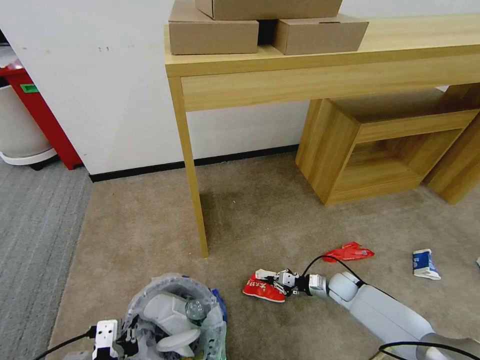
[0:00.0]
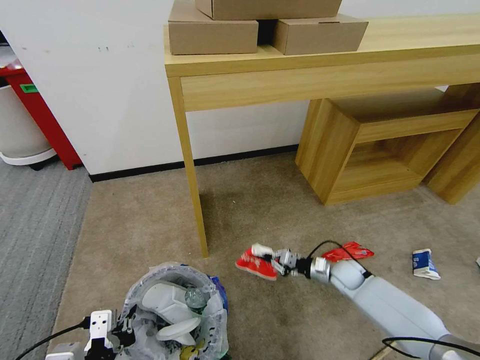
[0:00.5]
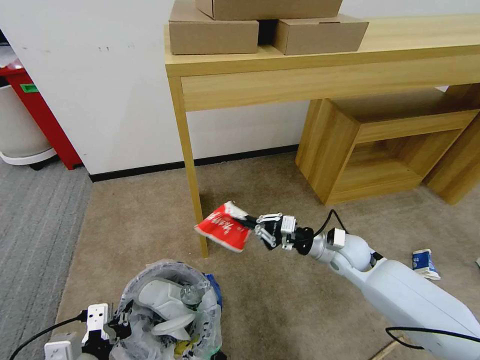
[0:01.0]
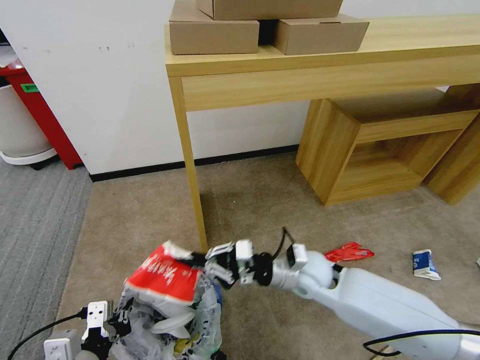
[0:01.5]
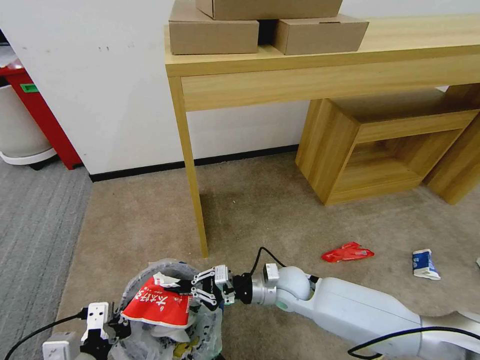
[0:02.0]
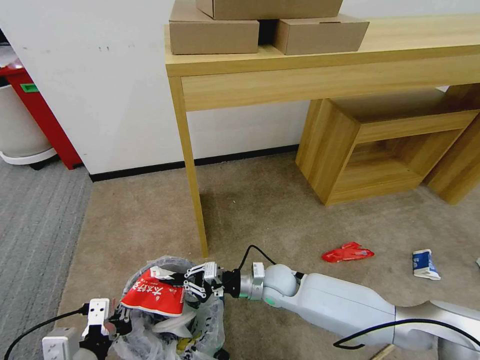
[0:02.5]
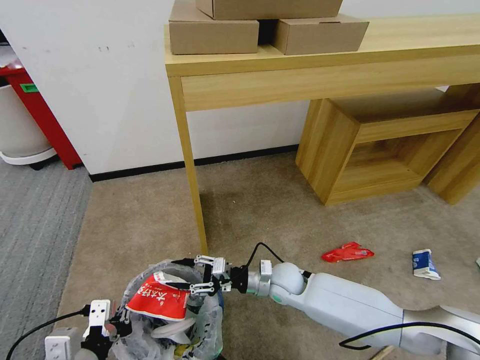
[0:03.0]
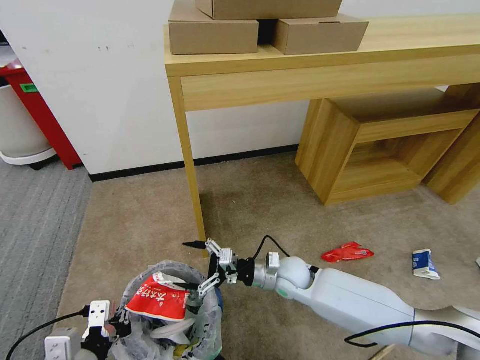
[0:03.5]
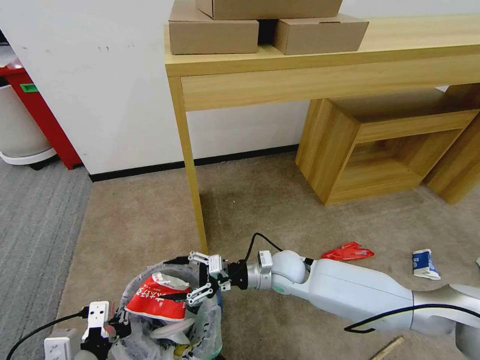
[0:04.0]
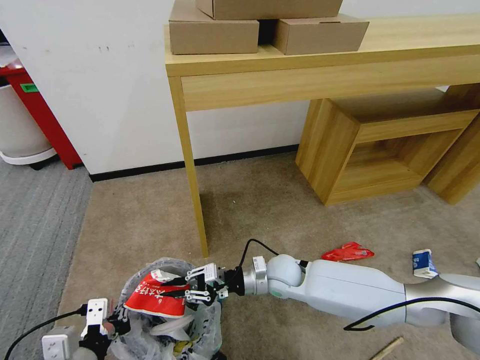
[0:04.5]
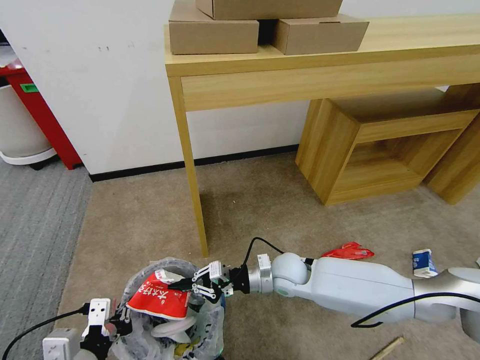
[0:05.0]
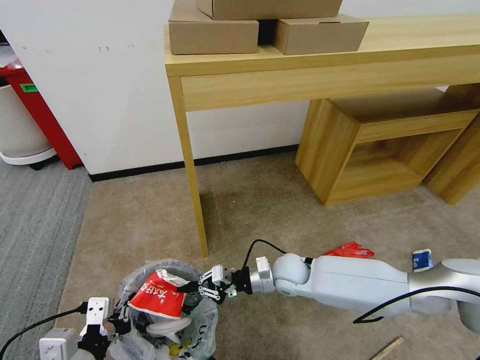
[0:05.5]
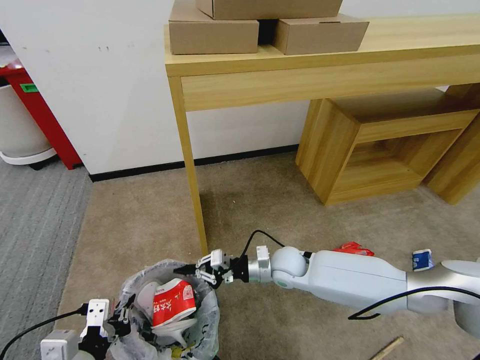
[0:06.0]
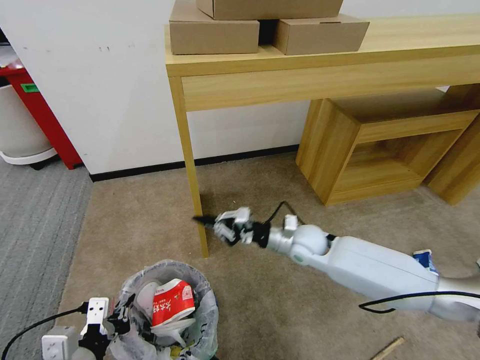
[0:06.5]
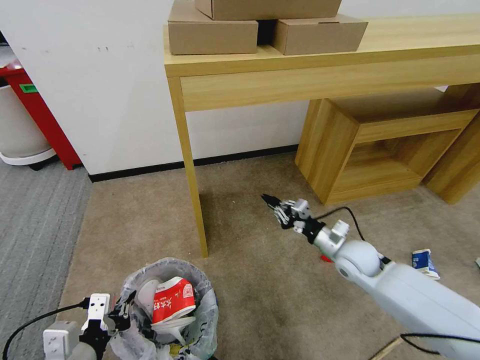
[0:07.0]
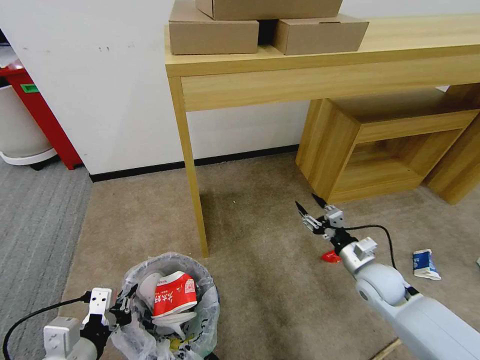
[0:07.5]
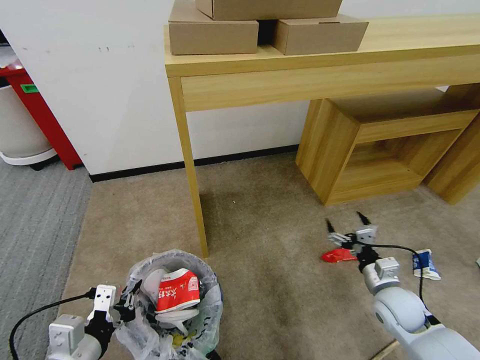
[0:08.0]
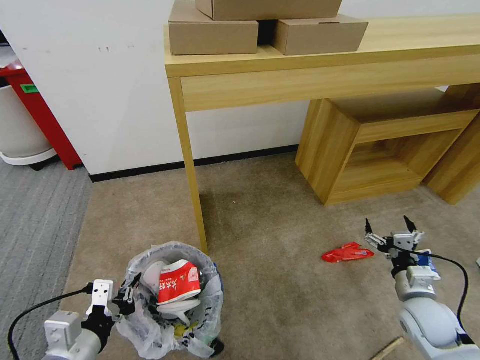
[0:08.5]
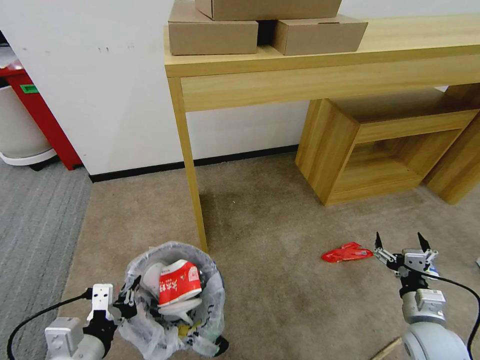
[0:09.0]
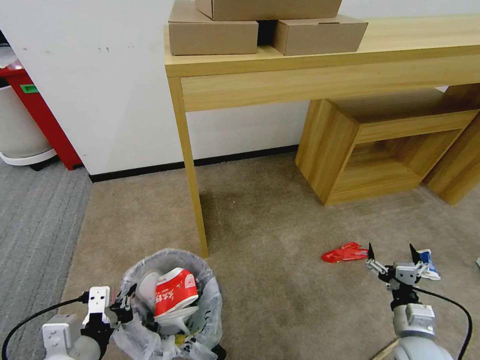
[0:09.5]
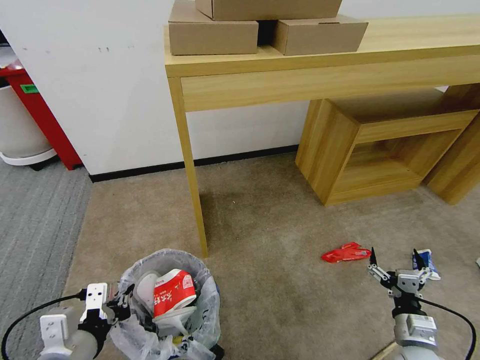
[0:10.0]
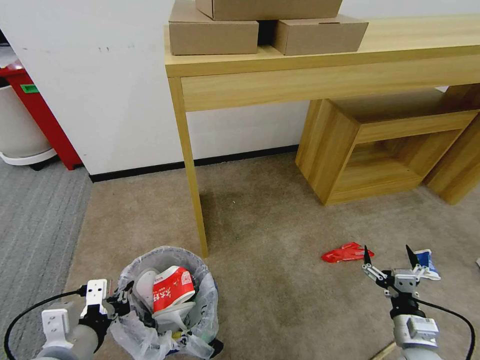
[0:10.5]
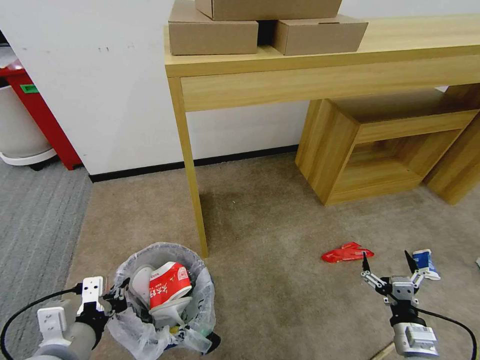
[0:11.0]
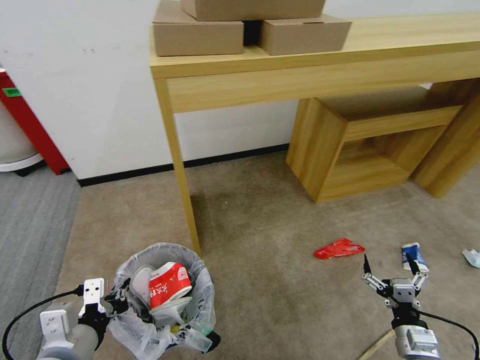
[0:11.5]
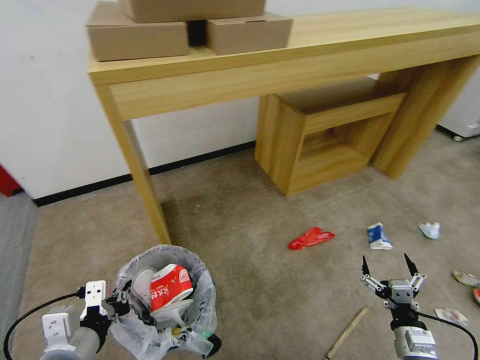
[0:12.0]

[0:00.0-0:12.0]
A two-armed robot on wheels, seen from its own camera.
Task of the whole recording: Pick up the trash bin and place the garbage on the floor into it.
0:00.0 to 0:02.0: The right gripper travels to the left and upward by roughly 25 cm.
0:02.0 to 0:04.0: The right gripper opens its fingers.
0:04.0 to 0:06.0: The right gripper closes.
0:06.0 to 0:08.0: The right gripper is displaced to the right and backward by some 25 cm, and opens its fingers.
0:08.0 to 0:10.0: The right gripper shifts roughly 10 cm backward.

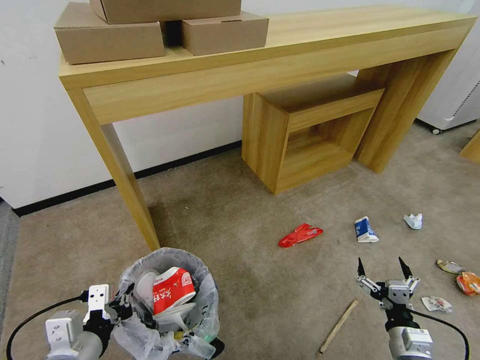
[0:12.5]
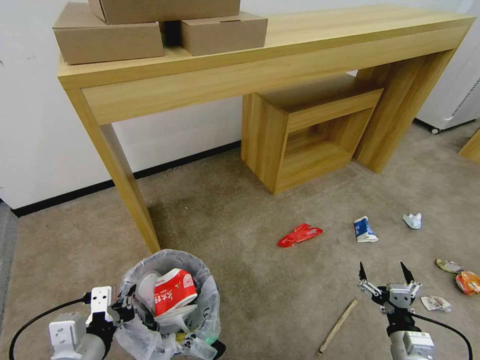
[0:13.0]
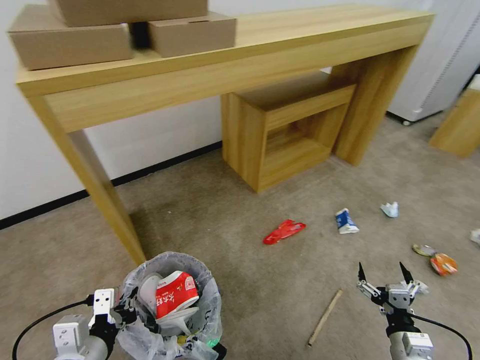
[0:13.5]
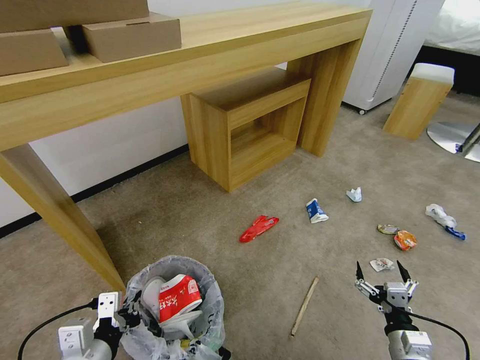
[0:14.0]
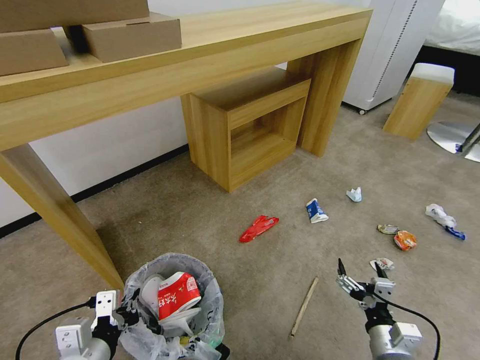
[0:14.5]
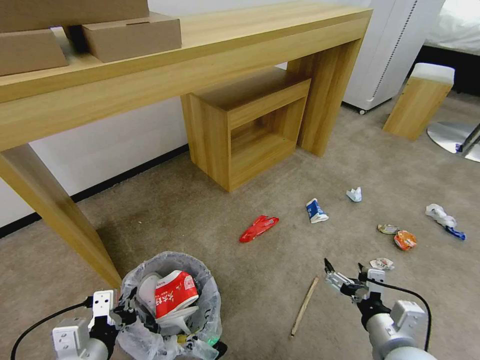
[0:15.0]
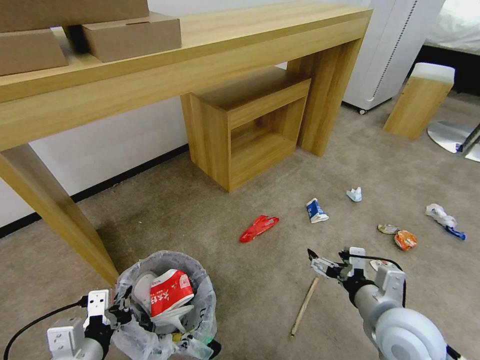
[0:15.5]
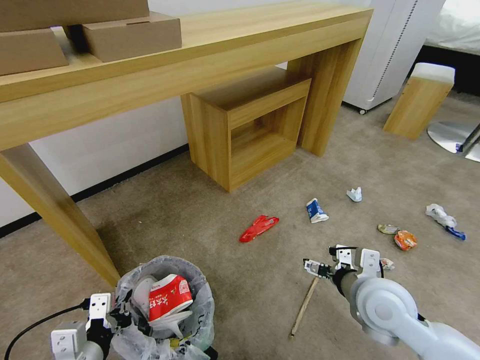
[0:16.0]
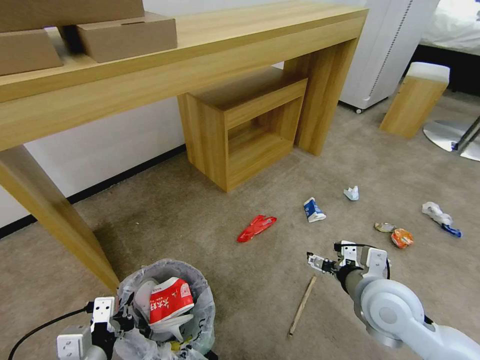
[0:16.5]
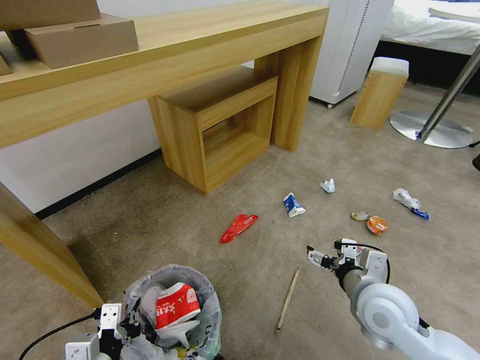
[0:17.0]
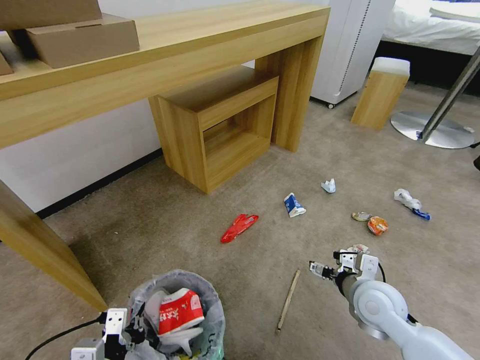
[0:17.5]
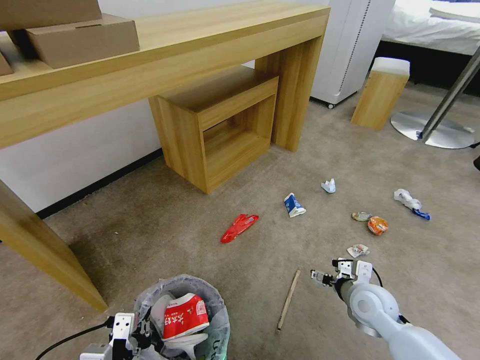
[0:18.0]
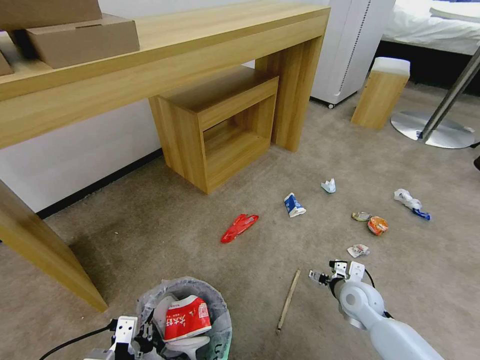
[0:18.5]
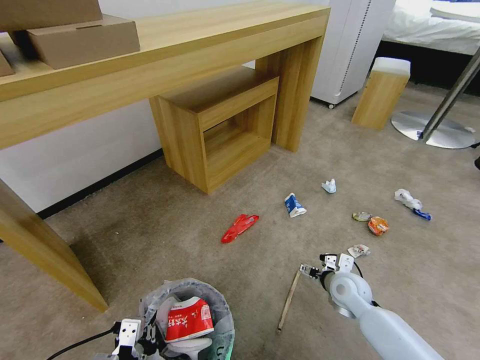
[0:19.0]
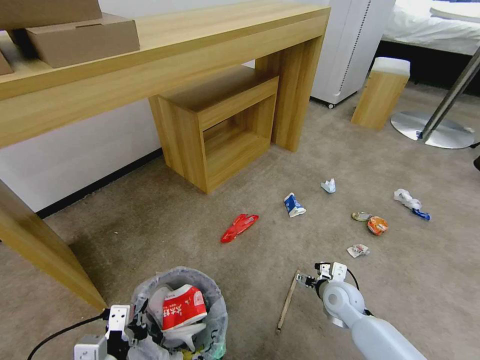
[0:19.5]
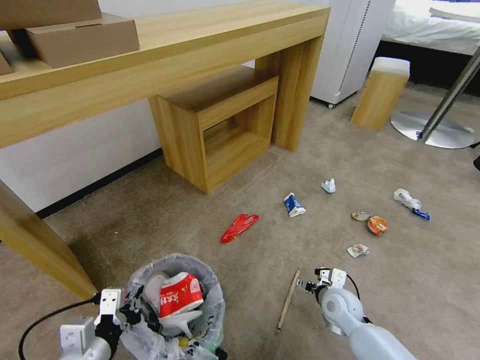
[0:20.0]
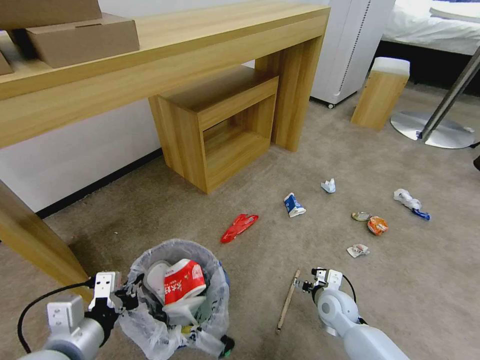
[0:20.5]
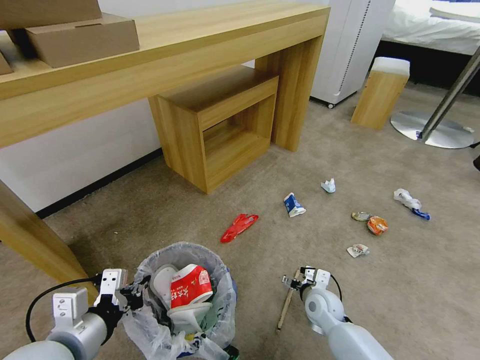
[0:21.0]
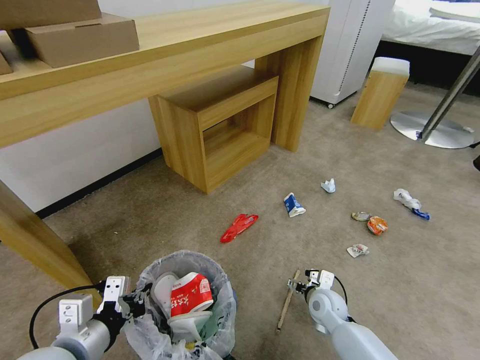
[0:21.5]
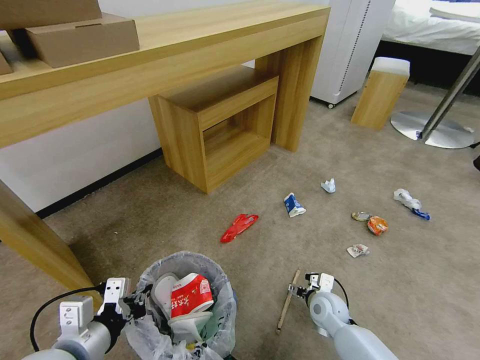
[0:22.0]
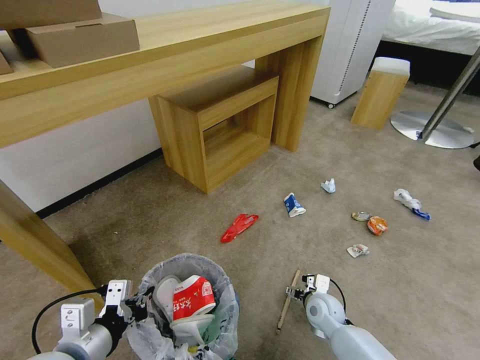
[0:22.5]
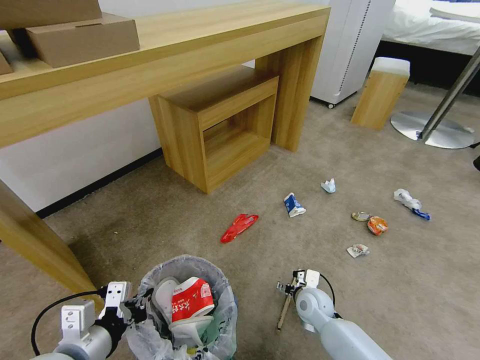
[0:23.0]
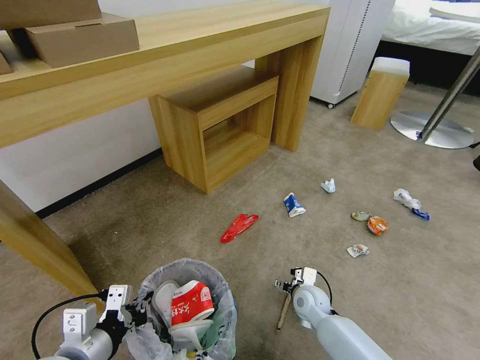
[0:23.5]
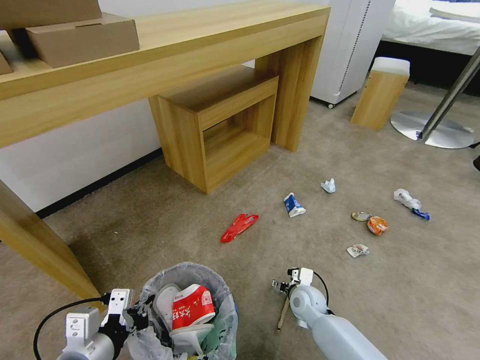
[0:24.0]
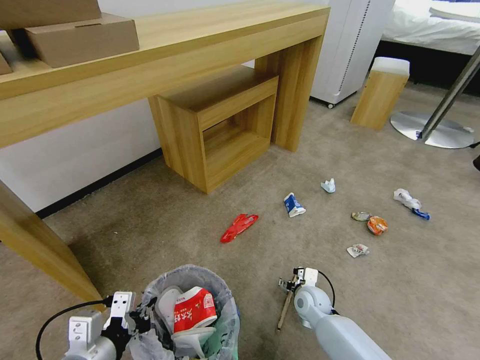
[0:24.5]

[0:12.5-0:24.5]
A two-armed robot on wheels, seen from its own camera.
Task of the whole recording: Pick up the trash bin and place the garbage on the floor into it.
0:12.5 to 0:14.5: The right gripper shifts by about 5 cm.
0:14.5 to 0:16.5: The right gripper heads upward and forward, covering approximately 15 cm.
0:16.5 to 0:18.5: The right gripper goes approximately 20 cm downward and forward.
0:18.5 to 0:20.5: The left gripper moves upward and forward, approximately 10 cm; the right gripper ends up roughly 5 cm from where it was.
0:20.5 to 0:22.5: The grippers move only a little.
0:22.5 to 0:24.5: The grippers move only a little.

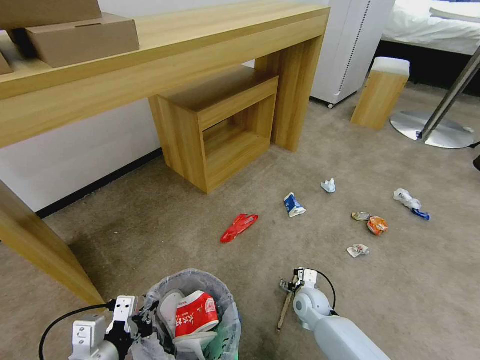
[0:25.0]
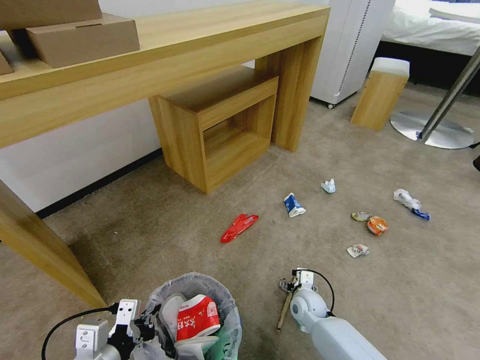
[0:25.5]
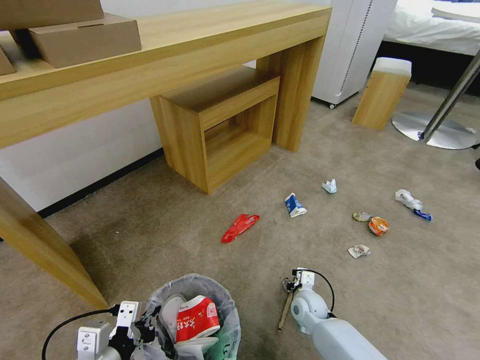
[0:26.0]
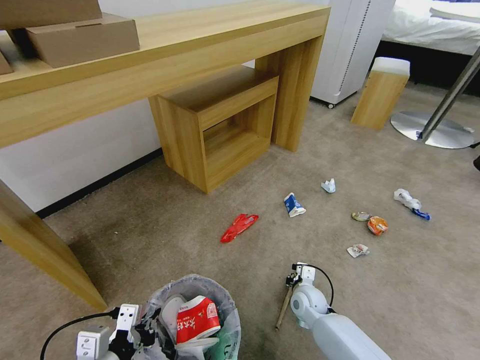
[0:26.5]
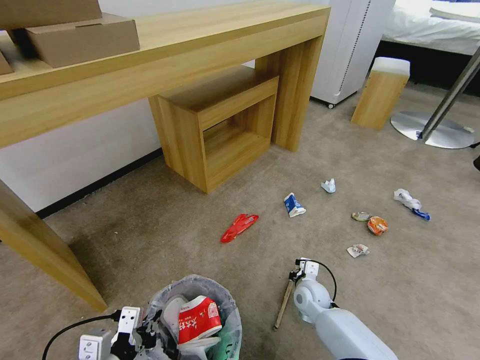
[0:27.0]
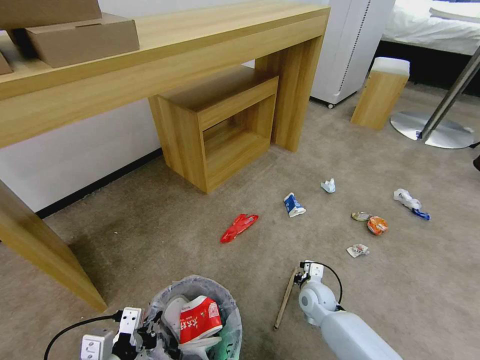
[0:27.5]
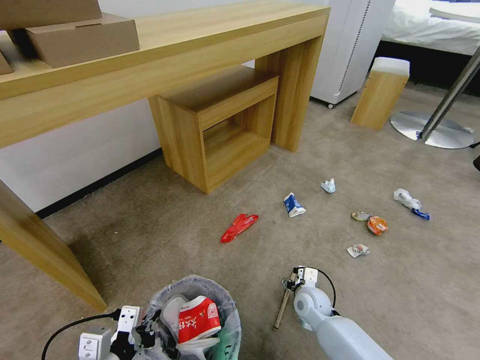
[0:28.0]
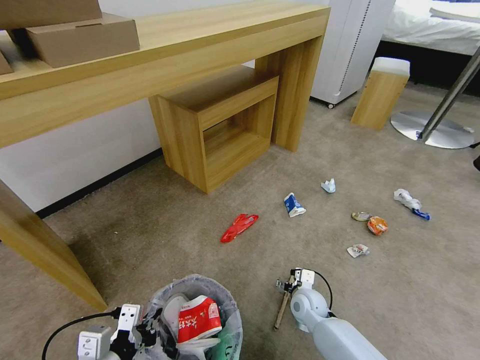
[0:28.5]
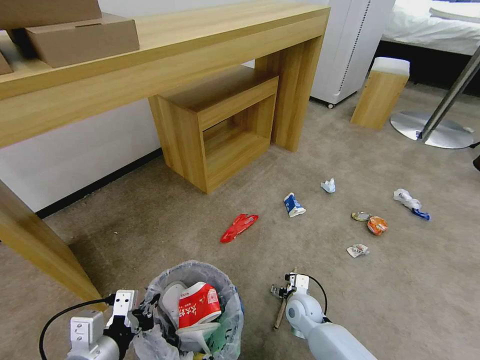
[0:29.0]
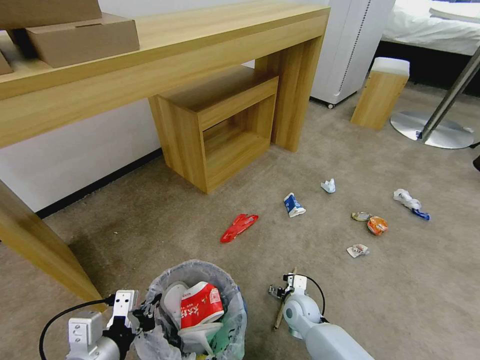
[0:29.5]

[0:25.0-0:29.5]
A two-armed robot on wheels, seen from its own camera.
Task of the whole recording: Pick up the trash bin and place the garbage on the floor into it.
0:25.0 to 0:27.0: The right gripper closes up.
0:27.0 to 0:29.5: The right gripper moves roughly 5 cm, and opens up.
